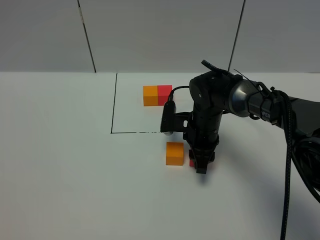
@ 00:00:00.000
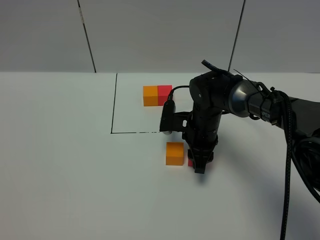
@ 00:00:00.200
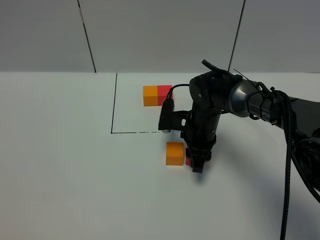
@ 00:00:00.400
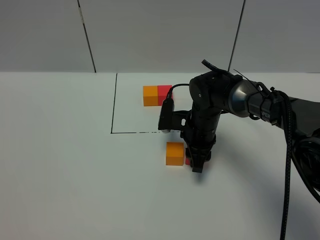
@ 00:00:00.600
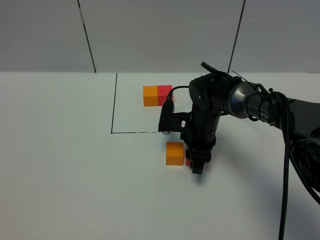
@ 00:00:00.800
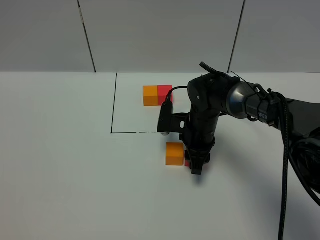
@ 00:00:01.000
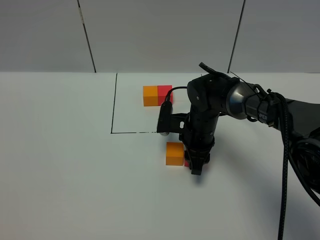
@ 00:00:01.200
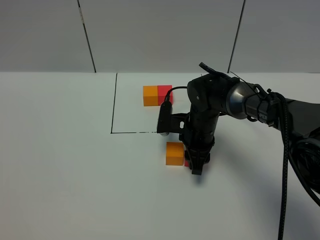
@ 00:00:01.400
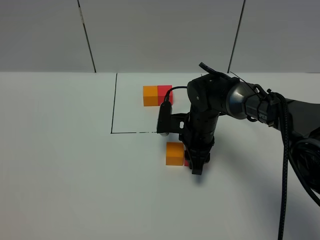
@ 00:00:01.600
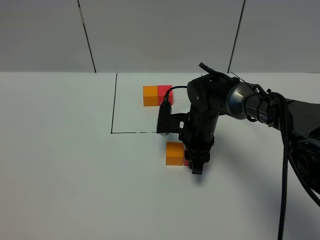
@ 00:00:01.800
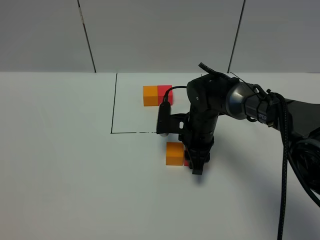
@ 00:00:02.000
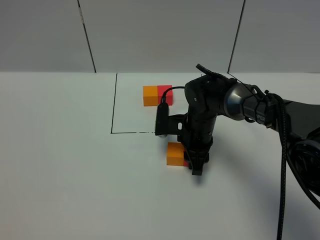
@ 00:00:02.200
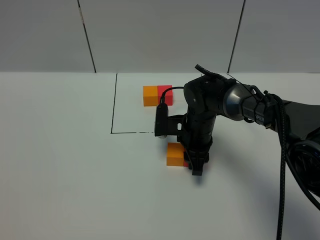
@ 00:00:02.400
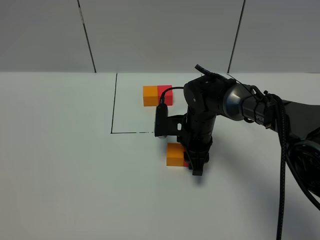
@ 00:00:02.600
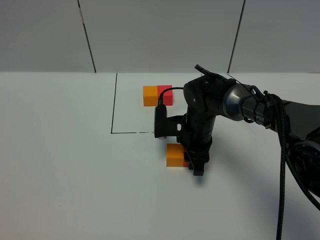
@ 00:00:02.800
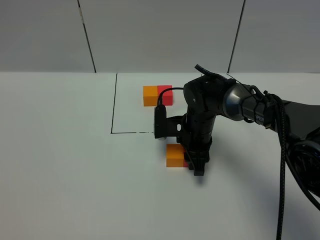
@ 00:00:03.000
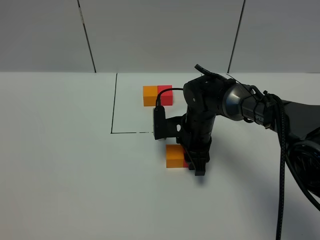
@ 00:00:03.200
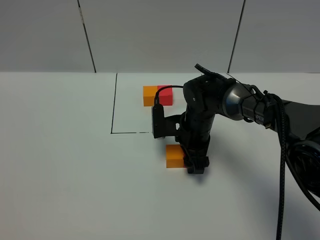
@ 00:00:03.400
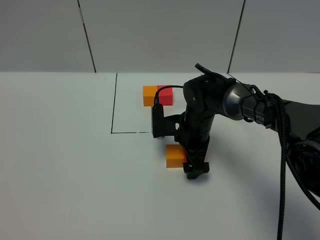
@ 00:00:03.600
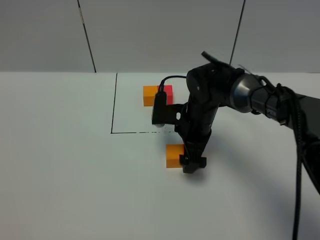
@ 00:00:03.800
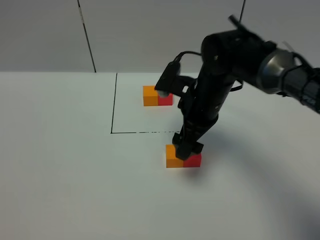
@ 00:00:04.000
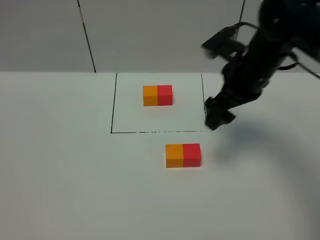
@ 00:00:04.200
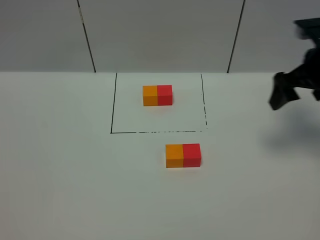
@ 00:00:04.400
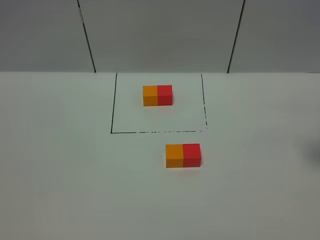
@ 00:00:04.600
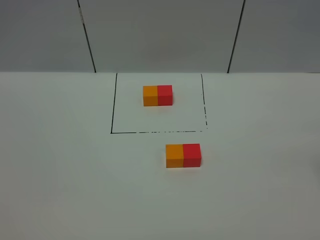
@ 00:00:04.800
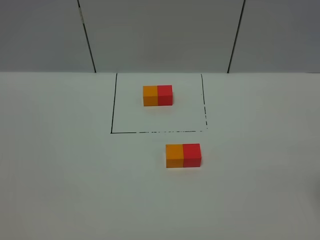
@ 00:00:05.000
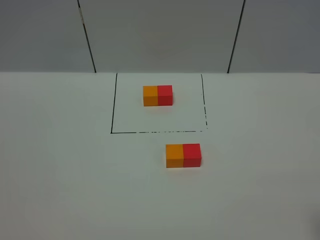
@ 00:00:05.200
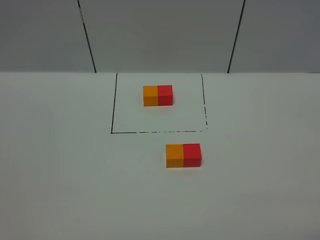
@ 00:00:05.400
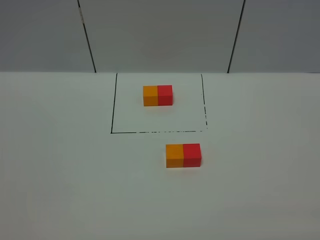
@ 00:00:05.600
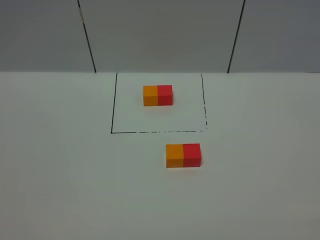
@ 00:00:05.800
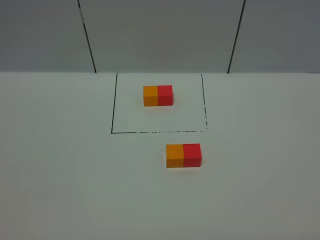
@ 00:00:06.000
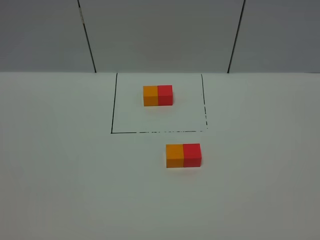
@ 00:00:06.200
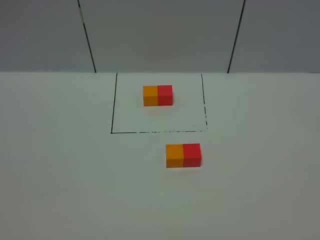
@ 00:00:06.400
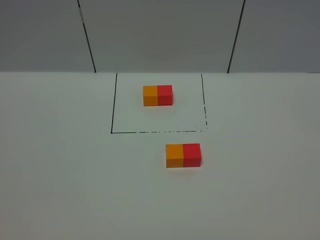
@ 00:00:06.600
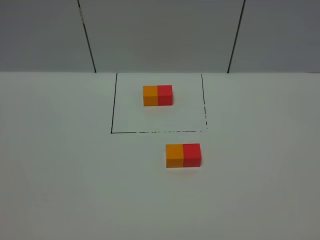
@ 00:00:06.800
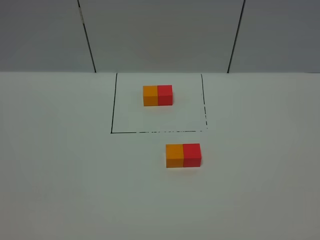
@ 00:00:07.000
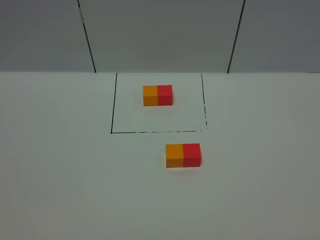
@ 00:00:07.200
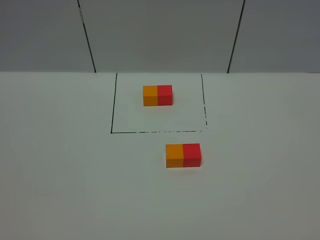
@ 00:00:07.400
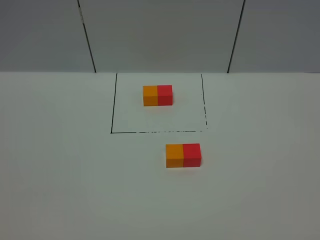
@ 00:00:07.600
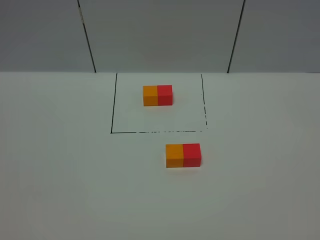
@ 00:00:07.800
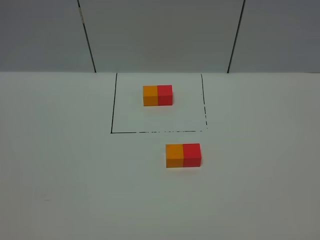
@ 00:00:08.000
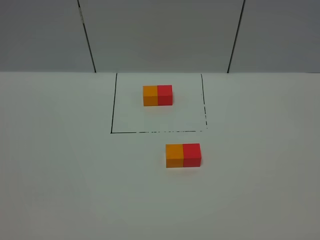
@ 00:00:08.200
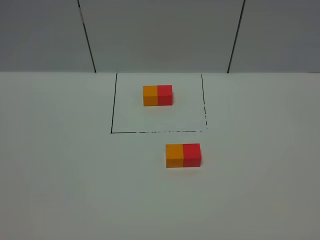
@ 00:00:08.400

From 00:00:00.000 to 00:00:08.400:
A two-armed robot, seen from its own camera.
Task of the whole recording: According to the building block template in front, assemble the scattered blocks together.
Step, from 00:00:00.000 to 00:00:03.800: Put the red cube on the right of the orange cube.
From 00:00:00.000 to 00:00:01.400: The two grippers keep their place.
From 00:00:01.400 to 00:00:02.800: There are only small adjustments of the grippers.
From 00:00:02.800 to 00:00:04.200: The right gripper is displaced upward and to the right by some 20 cm, and opens.
From 00:00:04.200 to 00:00:05.600: The right gripper moves backward and to the right, some 35 cm.
